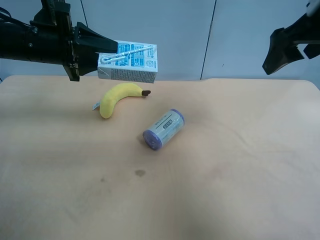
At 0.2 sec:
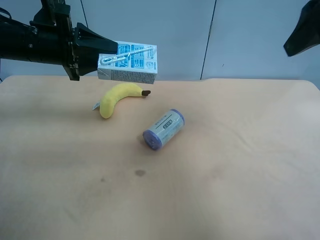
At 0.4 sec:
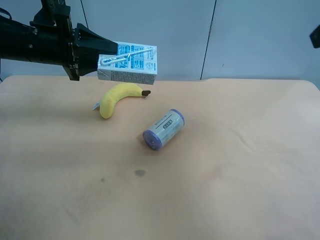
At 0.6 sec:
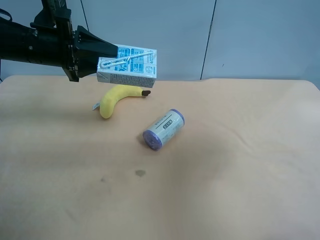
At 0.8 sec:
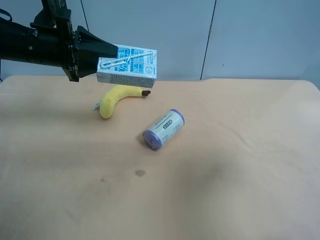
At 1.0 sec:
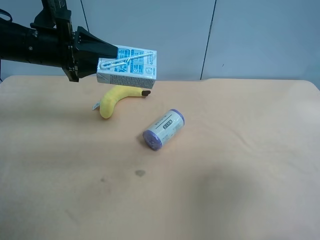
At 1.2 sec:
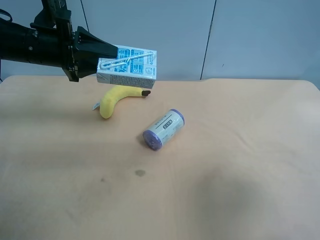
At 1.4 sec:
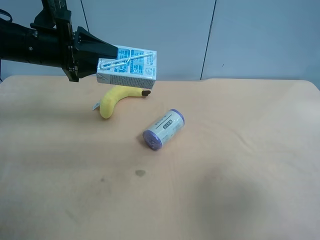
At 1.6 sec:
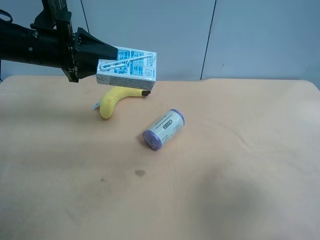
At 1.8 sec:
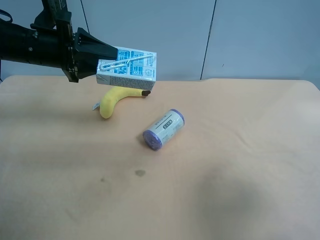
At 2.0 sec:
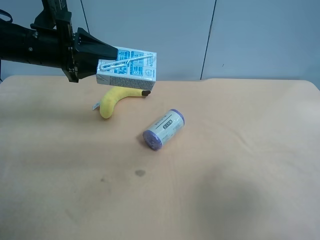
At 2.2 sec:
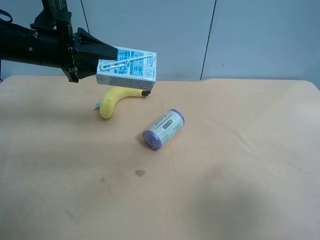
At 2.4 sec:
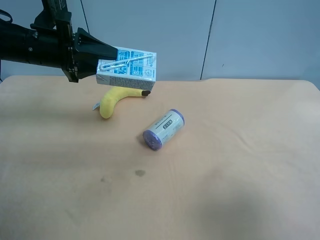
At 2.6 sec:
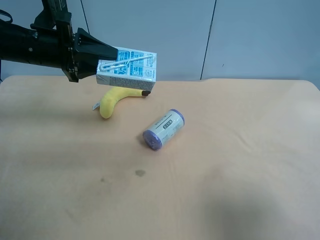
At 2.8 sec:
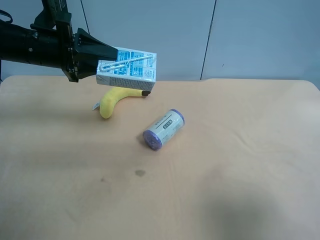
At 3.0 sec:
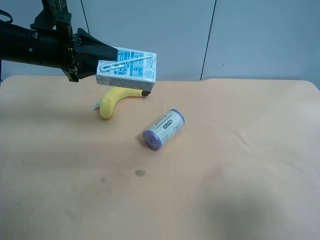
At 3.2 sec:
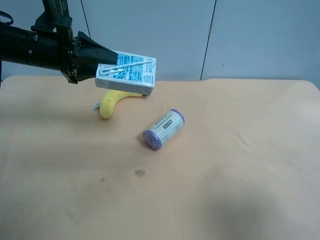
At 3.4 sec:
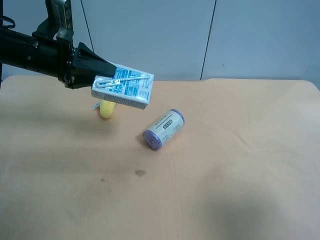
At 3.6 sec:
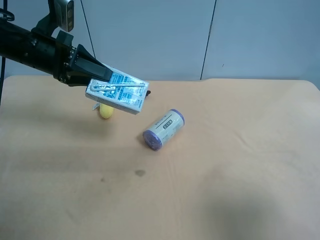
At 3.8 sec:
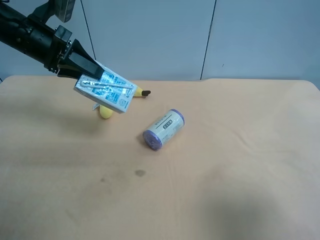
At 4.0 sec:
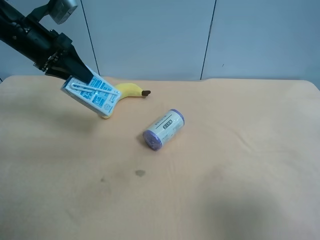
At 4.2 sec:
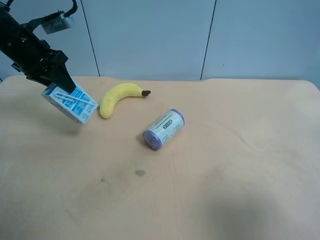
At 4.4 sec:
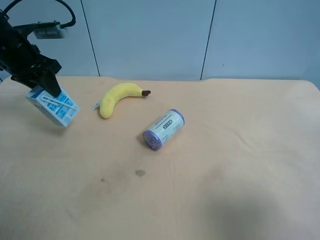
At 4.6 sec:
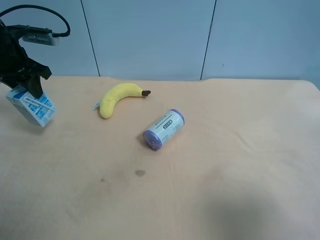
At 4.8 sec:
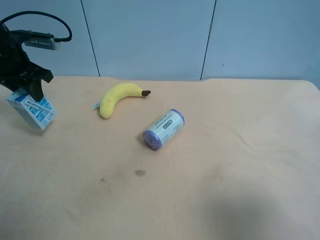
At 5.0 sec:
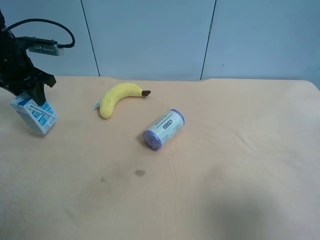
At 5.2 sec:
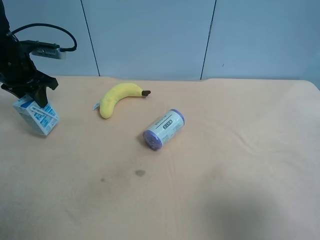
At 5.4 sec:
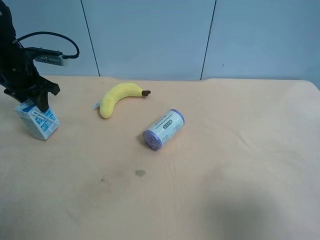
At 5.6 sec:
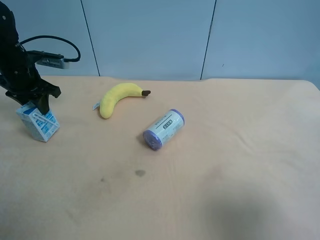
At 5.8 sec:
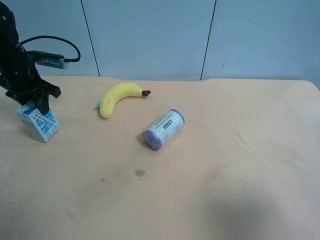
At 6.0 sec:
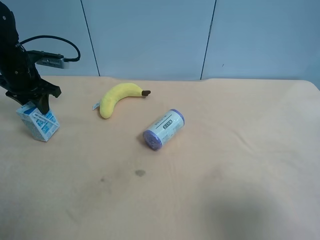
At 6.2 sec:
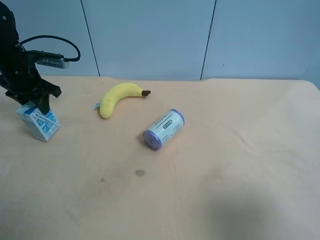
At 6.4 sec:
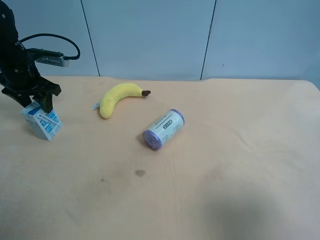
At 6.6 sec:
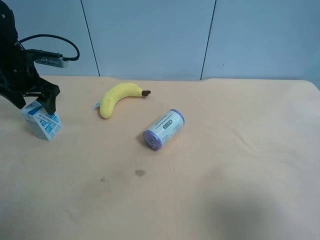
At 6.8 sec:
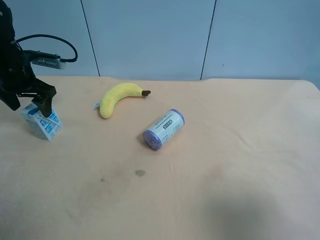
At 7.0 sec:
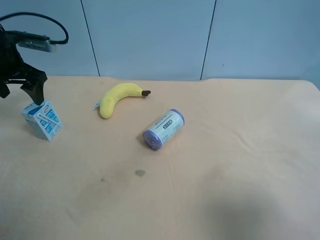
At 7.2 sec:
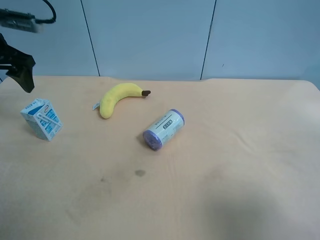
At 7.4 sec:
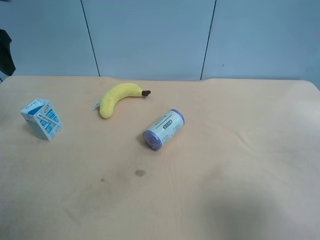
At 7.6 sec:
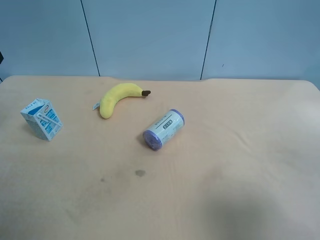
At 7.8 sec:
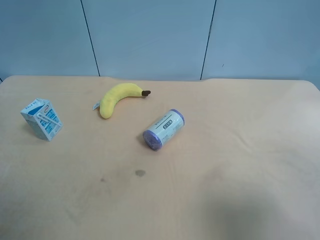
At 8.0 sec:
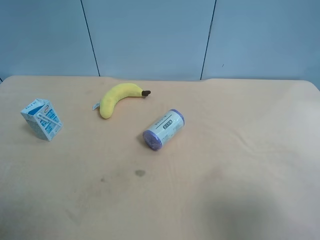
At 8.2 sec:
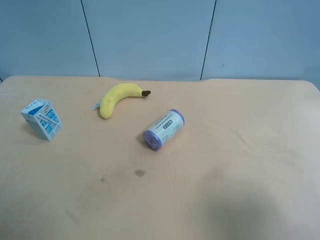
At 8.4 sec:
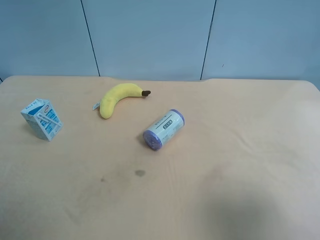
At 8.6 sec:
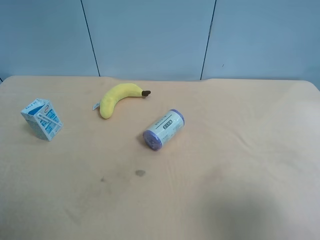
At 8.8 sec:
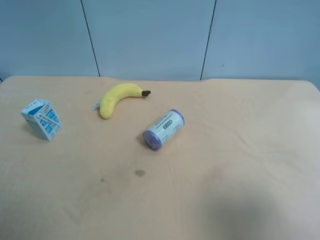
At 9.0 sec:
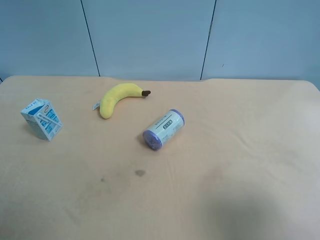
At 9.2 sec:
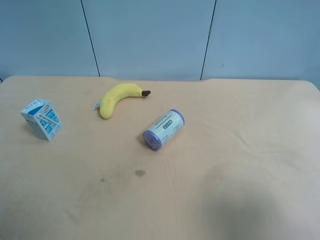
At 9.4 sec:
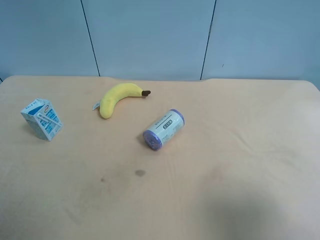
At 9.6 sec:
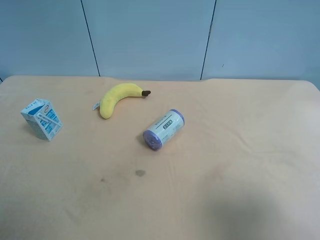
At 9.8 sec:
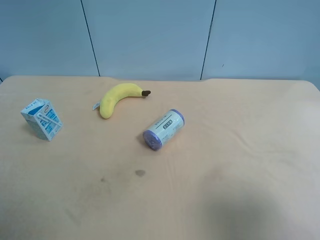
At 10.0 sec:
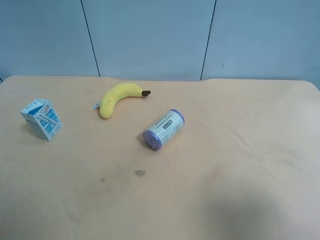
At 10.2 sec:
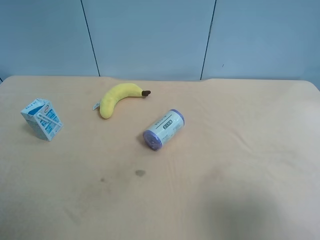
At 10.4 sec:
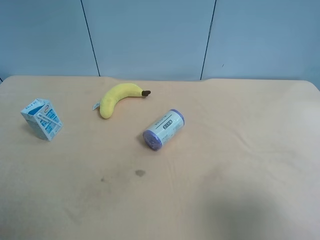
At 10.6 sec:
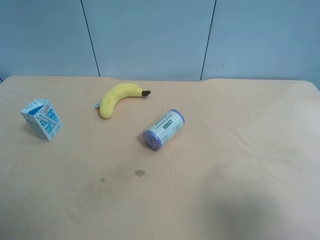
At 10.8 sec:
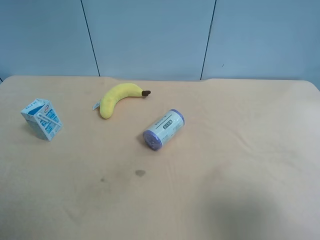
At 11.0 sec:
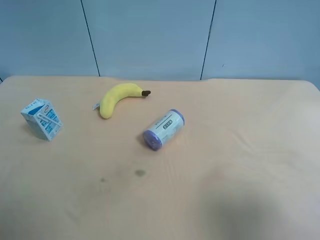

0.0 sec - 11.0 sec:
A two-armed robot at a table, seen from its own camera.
Task of the whole recording: use the right gripper to pick up the item and transfer it from the right gripper to the left gripper.
0.0 sec - 1.6 sec: The right gripper moves backward and downward, approximately 25 cm.
3.2 sec - 4.8 sec: The left gripper goes some 10 cm to the left.
4.8 sec - 6.2 sec: There are only small adjustments of the grippers.
6.2 sec - 7.8 sec: The left gripper moves upward and backward, approximately 25 cm, and opens its fingers.

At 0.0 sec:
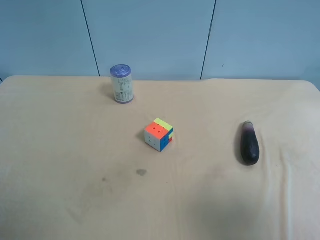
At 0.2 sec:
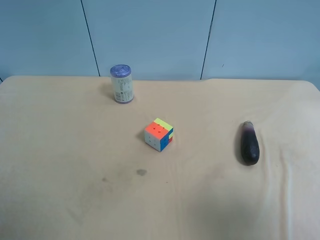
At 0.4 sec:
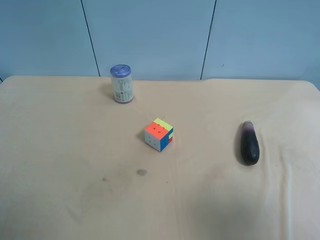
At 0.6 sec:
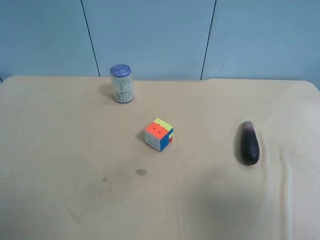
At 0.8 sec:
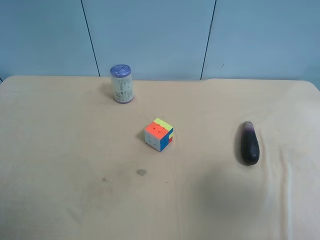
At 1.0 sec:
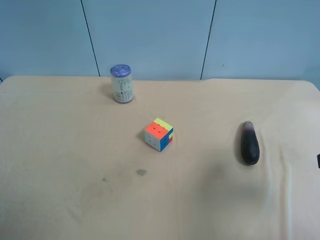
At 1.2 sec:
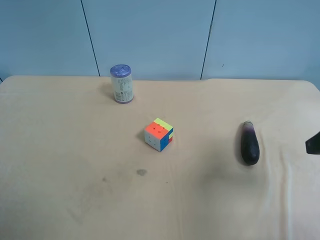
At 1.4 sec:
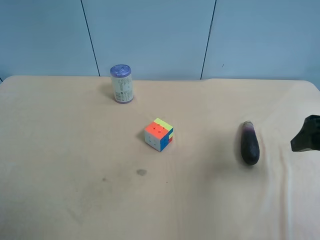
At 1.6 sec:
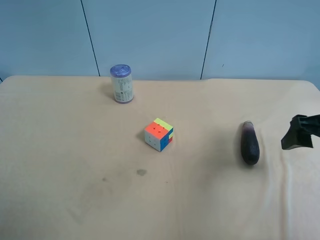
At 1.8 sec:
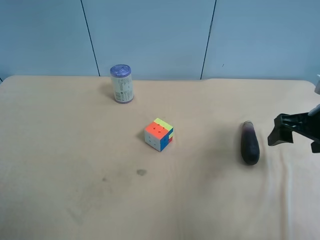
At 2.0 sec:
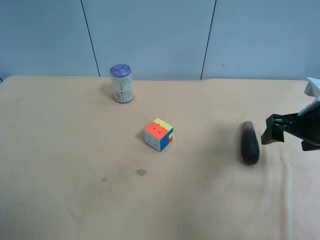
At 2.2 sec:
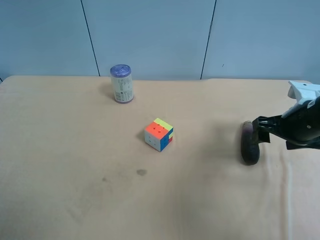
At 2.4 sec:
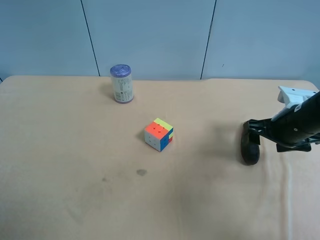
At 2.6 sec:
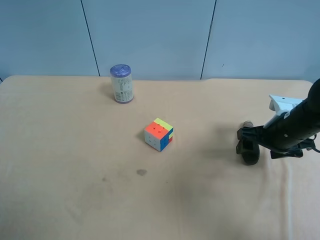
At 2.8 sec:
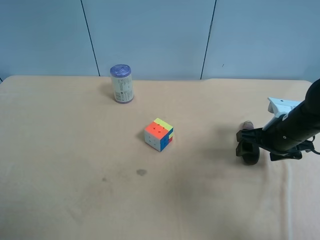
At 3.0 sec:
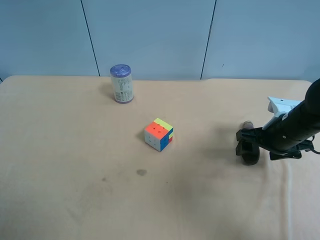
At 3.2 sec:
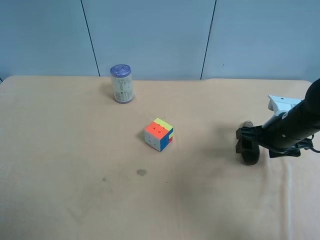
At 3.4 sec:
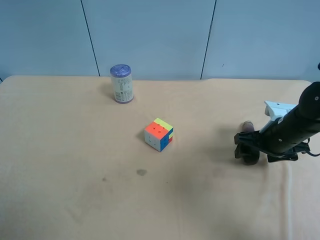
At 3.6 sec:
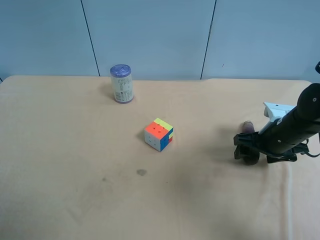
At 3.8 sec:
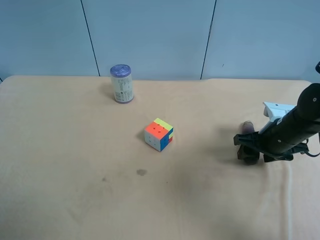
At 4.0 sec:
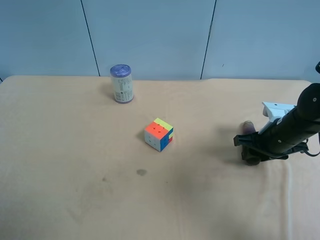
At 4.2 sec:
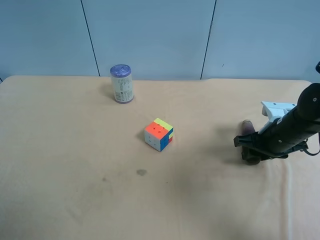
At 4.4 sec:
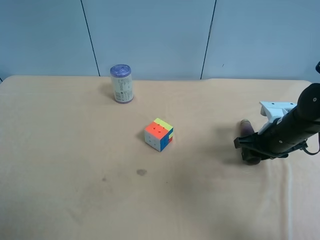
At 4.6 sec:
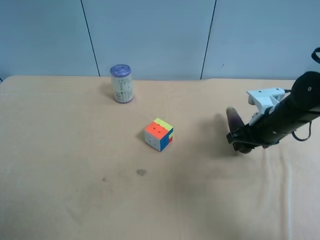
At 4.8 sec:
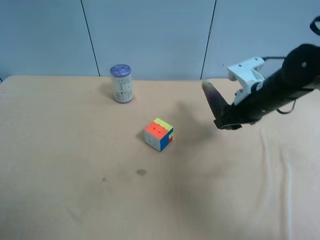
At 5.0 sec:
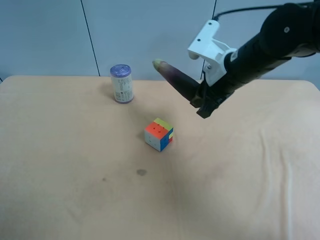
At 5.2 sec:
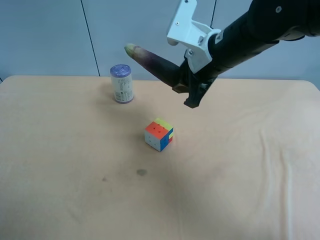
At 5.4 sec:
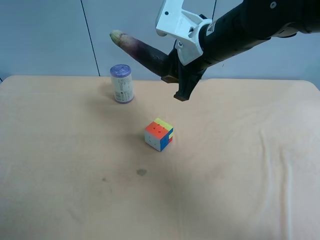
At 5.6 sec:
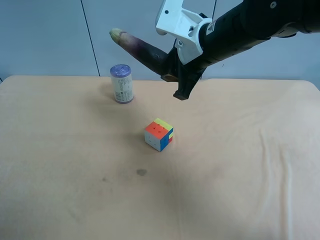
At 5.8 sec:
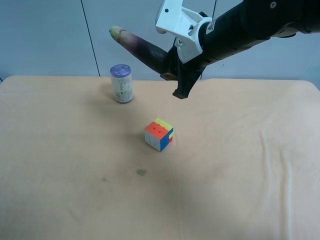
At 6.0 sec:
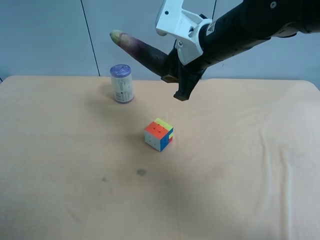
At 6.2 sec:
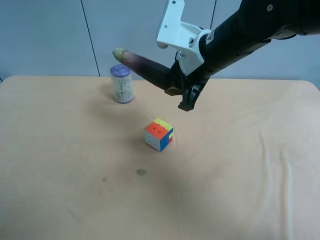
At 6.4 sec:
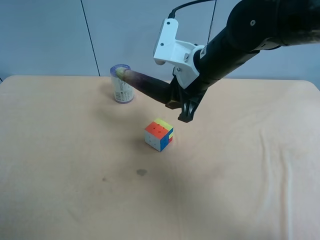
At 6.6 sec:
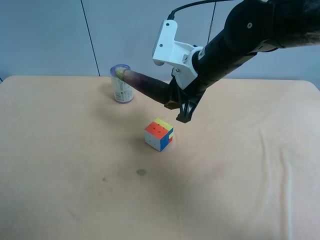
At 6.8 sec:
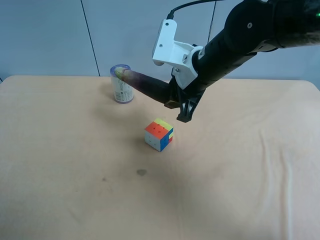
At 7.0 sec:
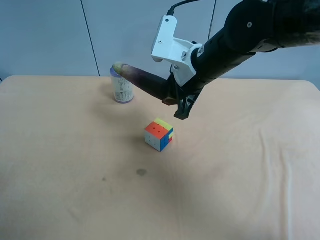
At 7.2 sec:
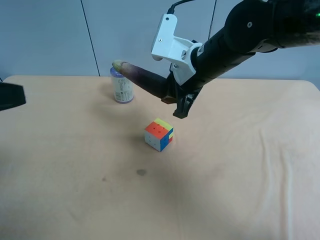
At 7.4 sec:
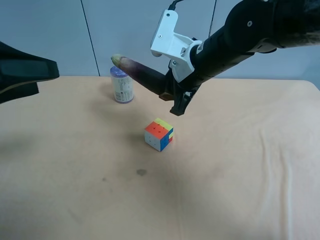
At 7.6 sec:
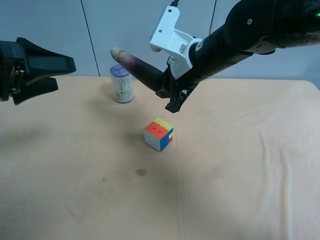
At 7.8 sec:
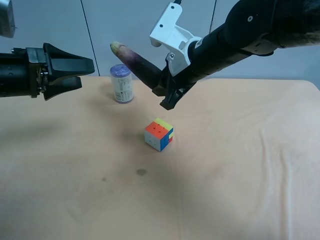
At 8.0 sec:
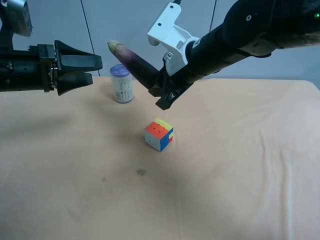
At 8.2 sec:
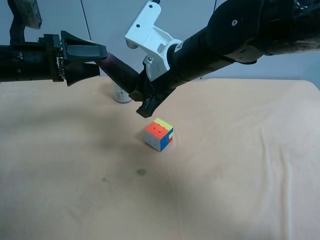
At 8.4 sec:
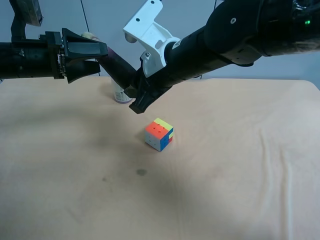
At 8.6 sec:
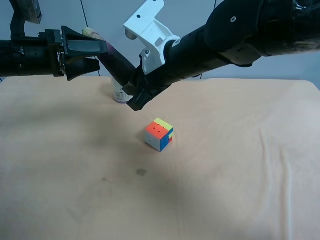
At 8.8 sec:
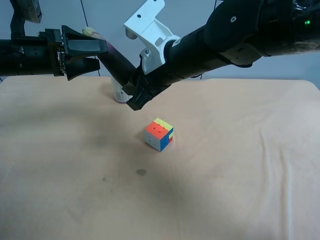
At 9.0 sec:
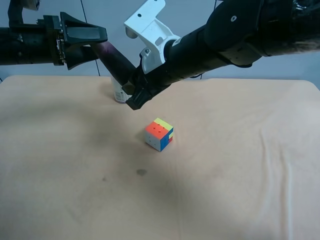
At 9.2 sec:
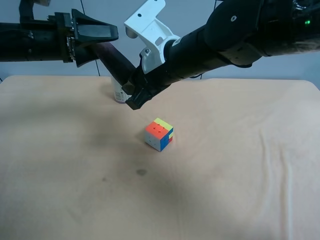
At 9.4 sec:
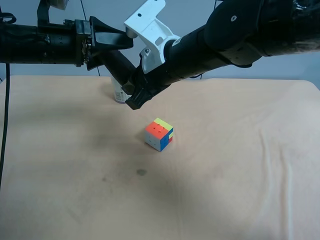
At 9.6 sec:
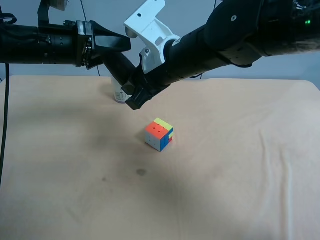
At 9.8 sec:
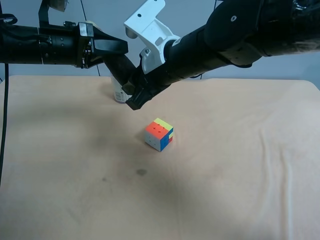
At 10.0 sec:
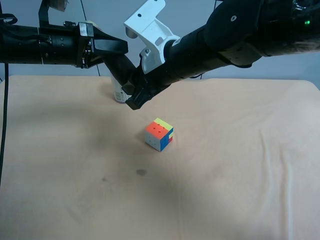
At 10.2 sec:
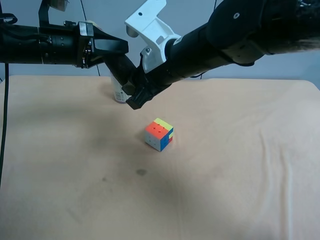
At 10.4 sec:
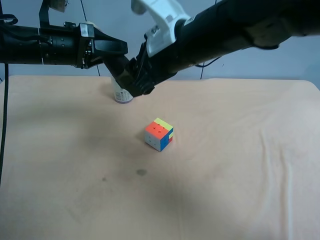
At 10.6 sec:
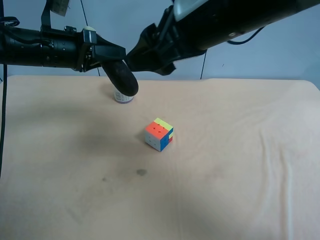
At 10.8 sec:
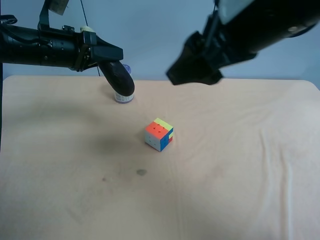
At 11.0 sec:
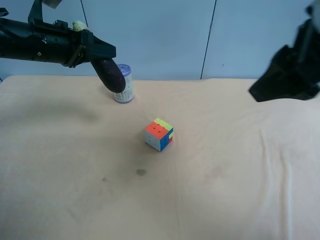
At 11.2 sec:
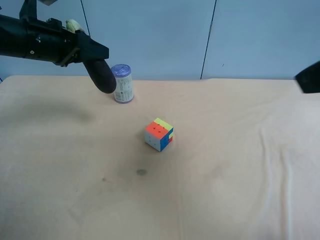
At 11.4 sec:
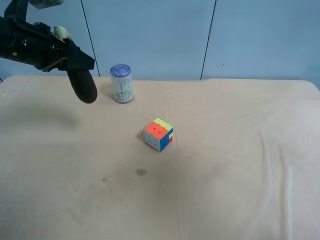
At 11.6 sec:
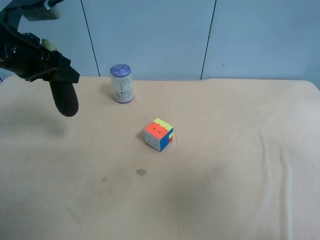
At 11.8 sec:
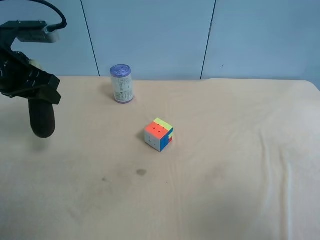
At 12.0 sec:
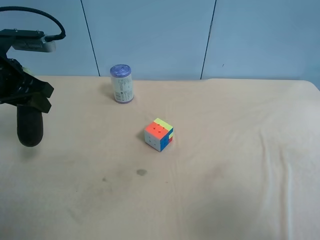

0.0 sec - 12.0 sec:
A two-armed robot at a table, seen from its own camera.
Task of the whole recording: use the right gripper to pick up the item and transfer it from the right gripper to the left gripper.
0.0 sec - 1.6 sec: The right gripper is displaced forward by about 20 cm.
1.6 sec - 3.0 sec: The right gripper shifts roughly 10 cm downward and forward.
3.0 sec - 4.4 sec: The right gripper closes its fingers.
4.4 sec - 6.0 sec: The right gripper shifts about 25 cm to the left and upward.
6.0 sec - 7.6 sec: The left gripper travels forward by about 20 cm.
7.6 sec - 9.0 sec: The left gripper goes roughly 10 cm forward. Meanwhile the right gripper moves some 5 cm.
9.0 sec - 10.4 sec: The right gripper ends up roughly 5 cm from where it was, and opens up, while the left gripper closes up.
10.4 sec - 12.0 sec: The right gripper is displaced backward and to the right by some 40 cm; the left gripper is displaced to the left and backward by some 10 cm.
